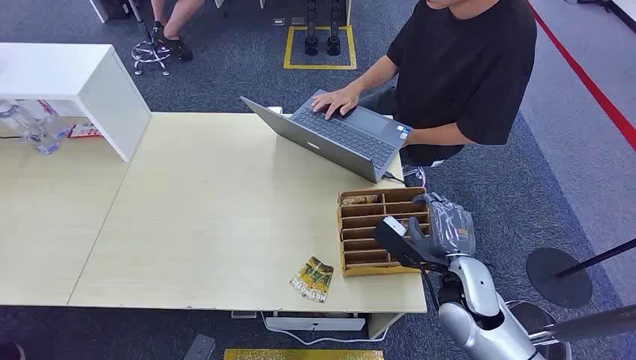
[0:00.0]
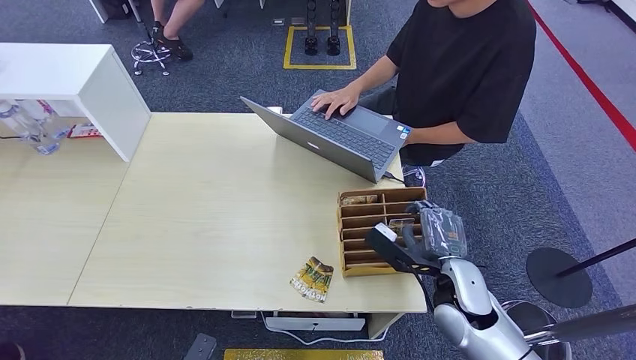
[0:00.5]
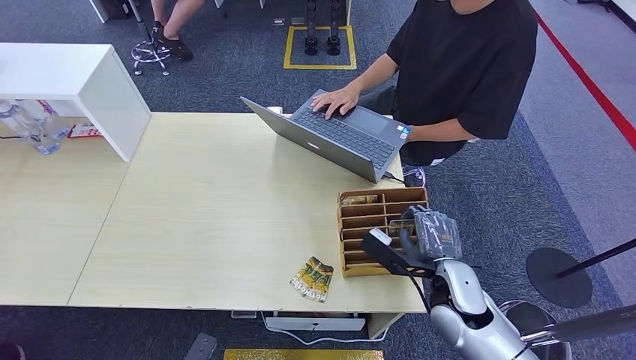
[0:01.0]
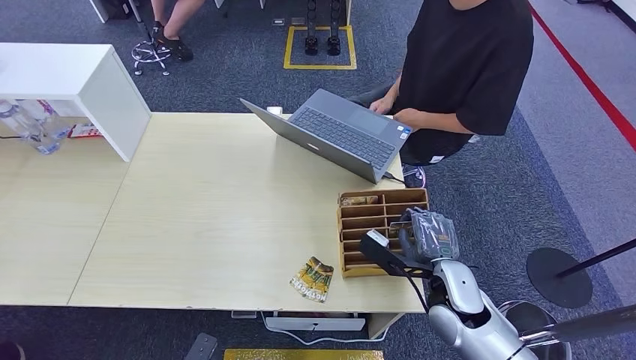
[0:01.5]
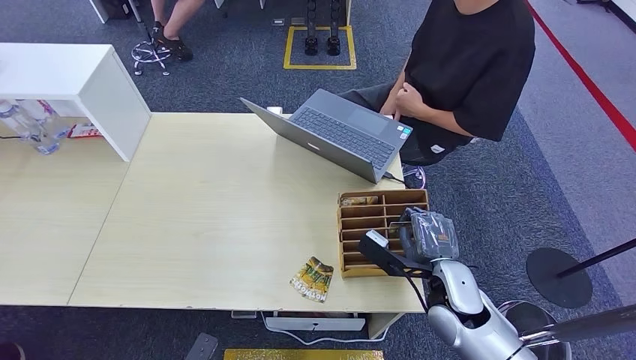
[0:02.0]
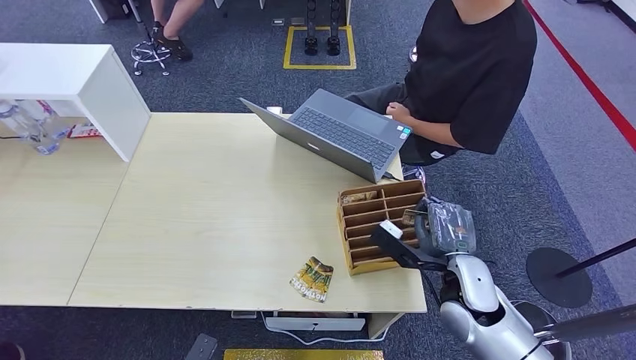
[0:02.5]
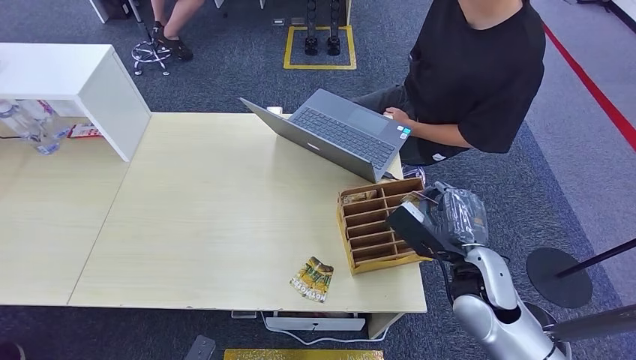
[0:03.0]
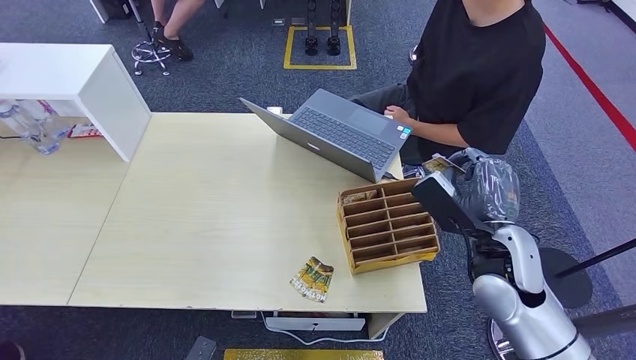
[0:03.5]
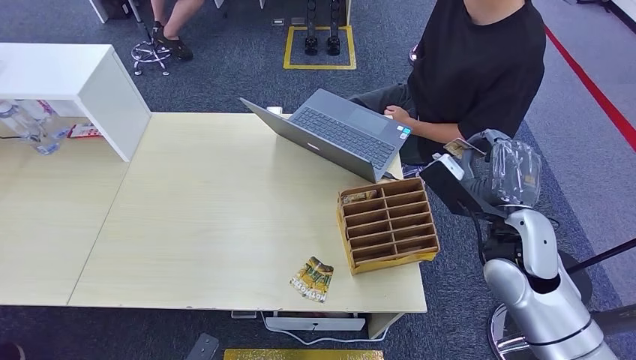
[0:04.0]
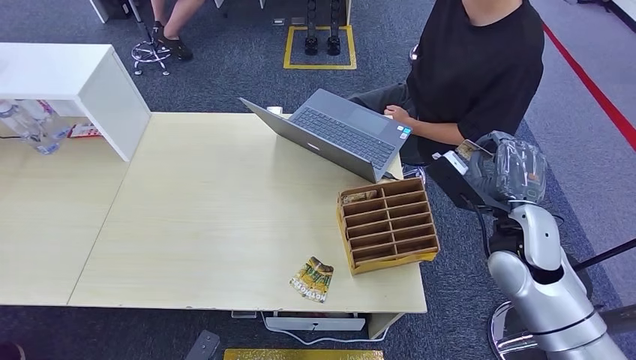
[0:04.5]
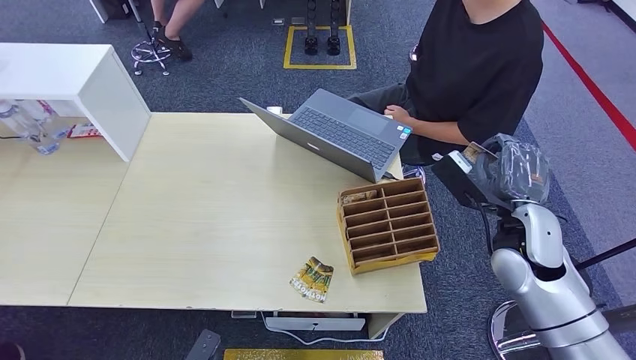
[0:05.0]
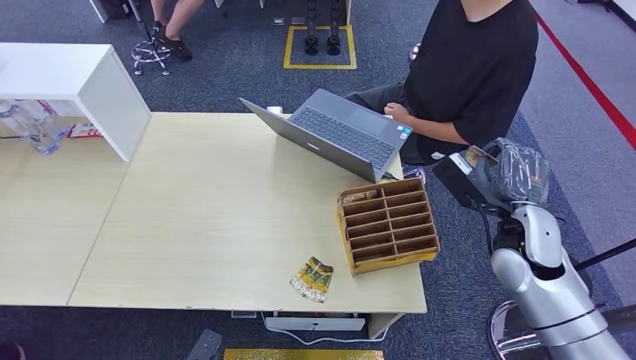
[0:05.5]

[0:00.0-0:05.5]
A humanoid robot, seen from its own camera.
Step, 0:00.0 to 0:03.5: Pick up the room card from the card holder.
Step, 0:04.0 to 0:05.5: Hand the room card to the target.
0:02.0 to 0:03.5: The right hand goes about 10 cm upward.
0:03.5 to 0:05.5: The right hand shifts some 5 cm to the right.

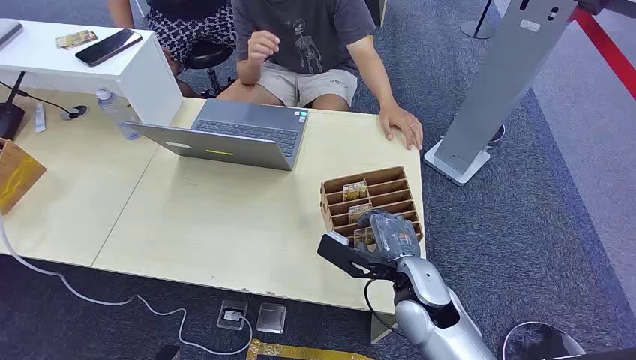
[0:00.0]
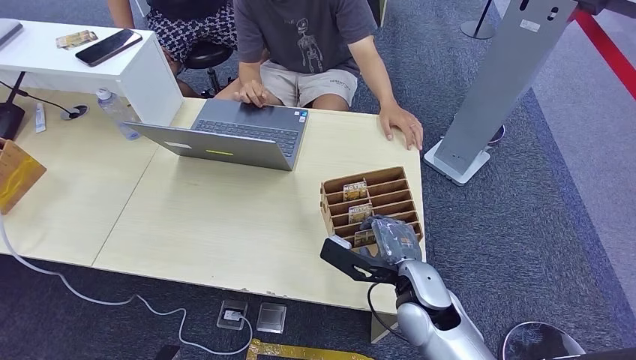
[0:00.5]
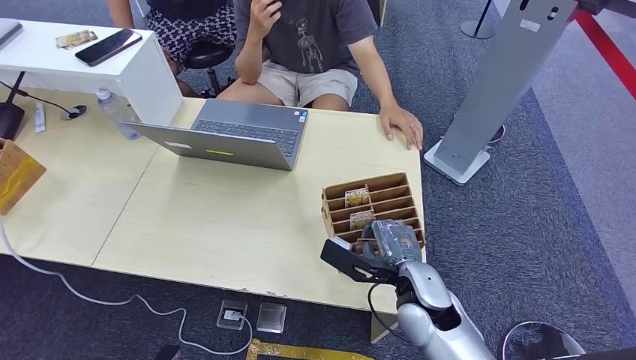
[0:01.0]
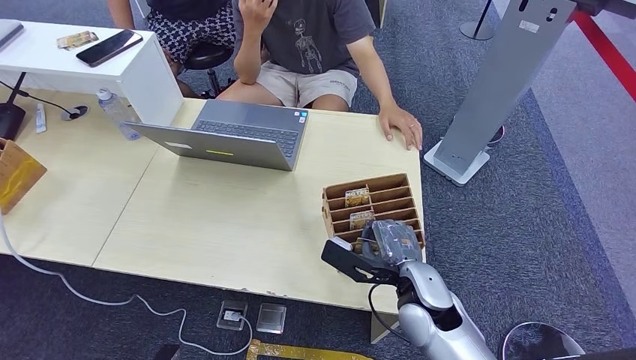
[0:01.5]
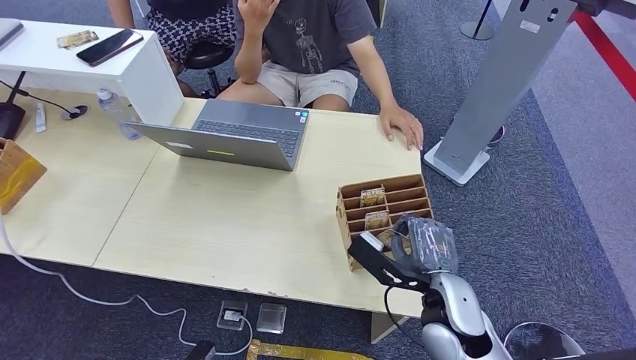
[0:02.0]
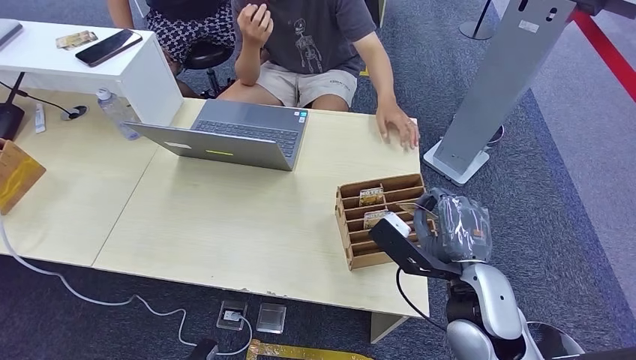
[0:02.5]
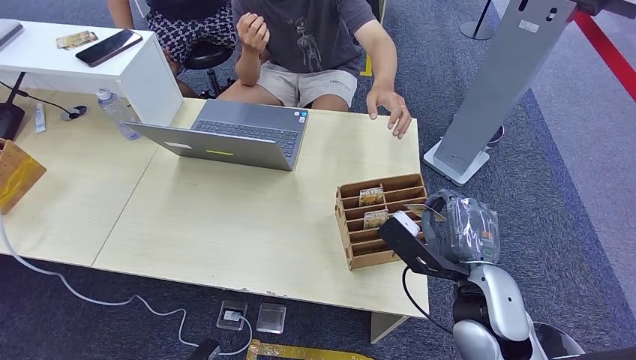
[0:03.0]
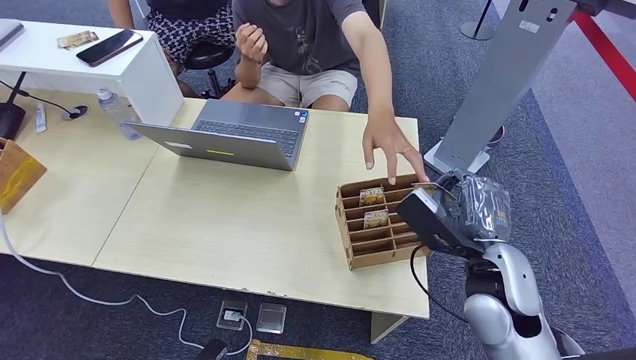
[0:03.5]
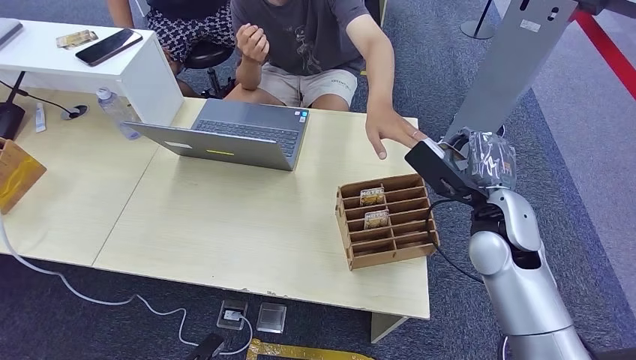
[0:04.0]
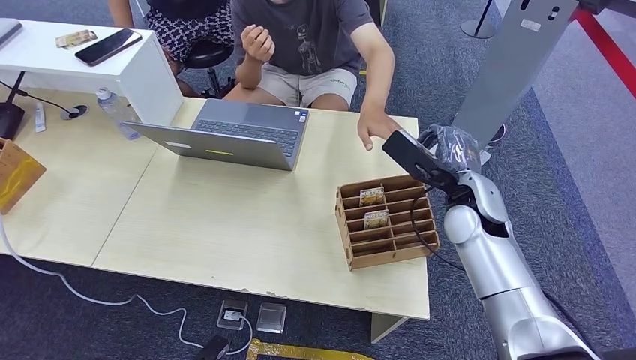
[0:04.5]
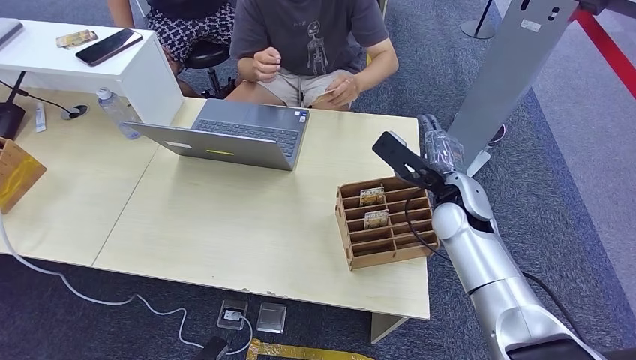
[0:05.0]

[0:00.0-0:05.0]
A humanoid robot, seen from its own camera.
Step, 0:00.0 to 0:02.0: Pick up the room card from the card holder.
Step, 0:03.0 to 0:05.0: Hand the room card to the target.
0:02.5 to 0:05.0: The right hand travels forward by approximately 15 cm.
